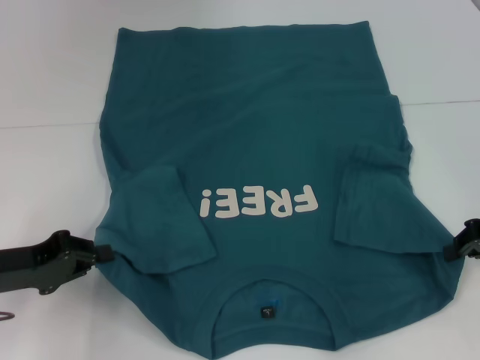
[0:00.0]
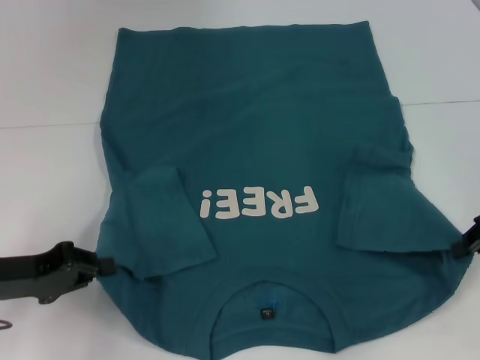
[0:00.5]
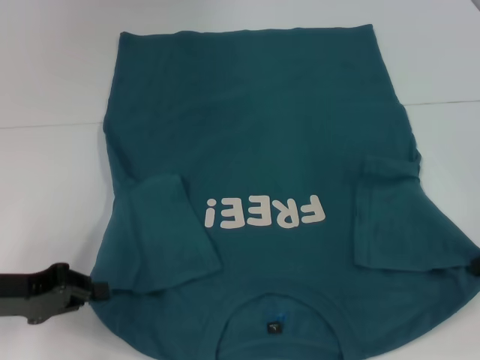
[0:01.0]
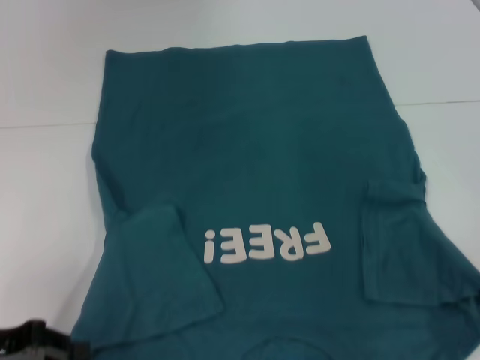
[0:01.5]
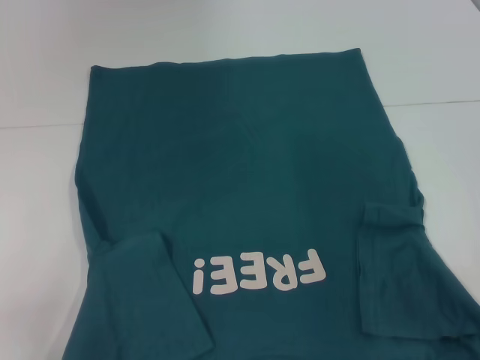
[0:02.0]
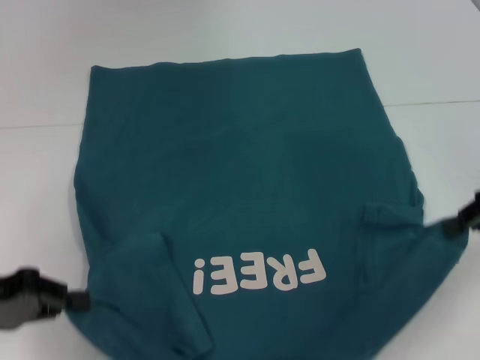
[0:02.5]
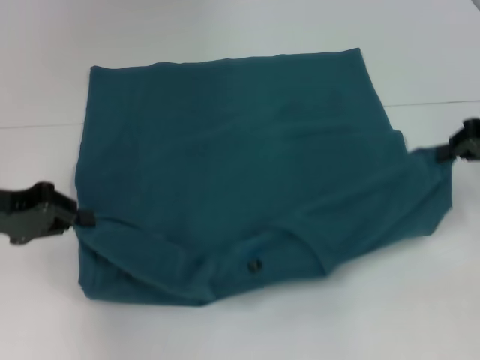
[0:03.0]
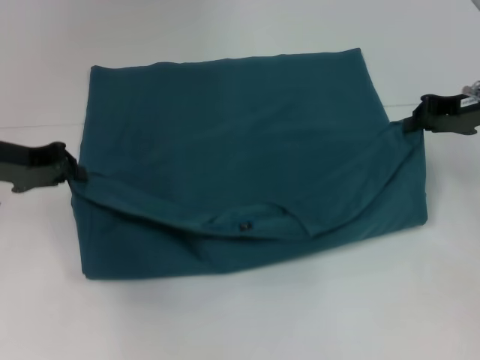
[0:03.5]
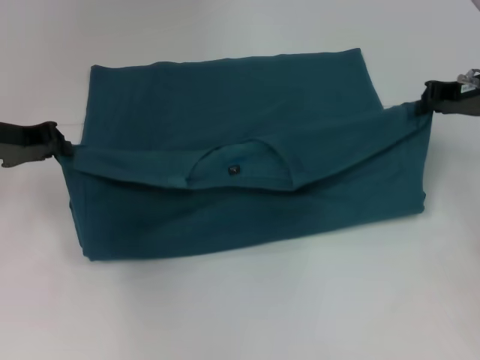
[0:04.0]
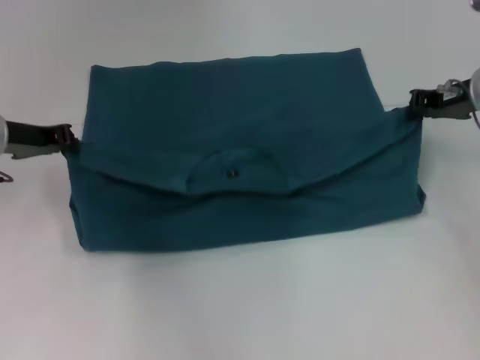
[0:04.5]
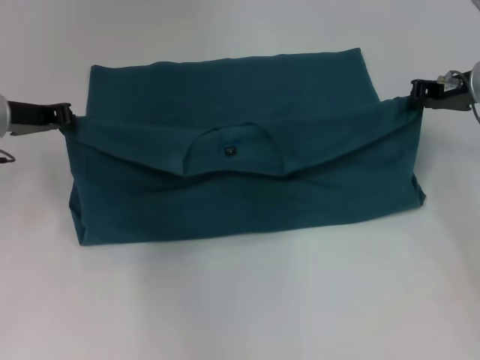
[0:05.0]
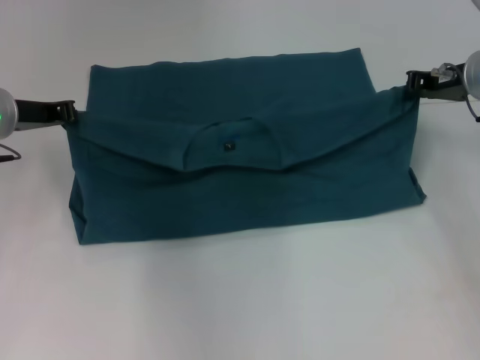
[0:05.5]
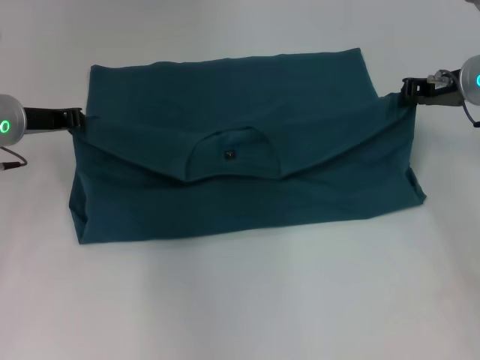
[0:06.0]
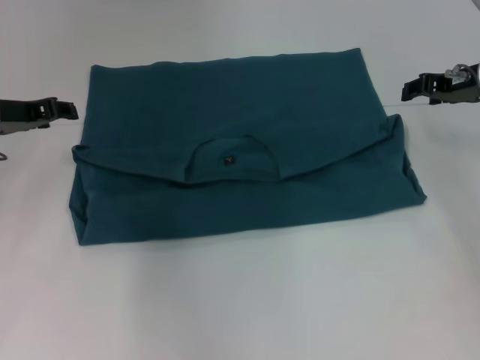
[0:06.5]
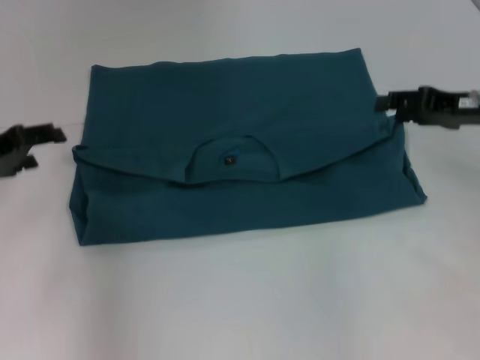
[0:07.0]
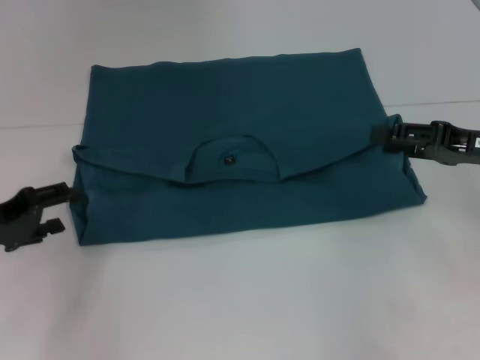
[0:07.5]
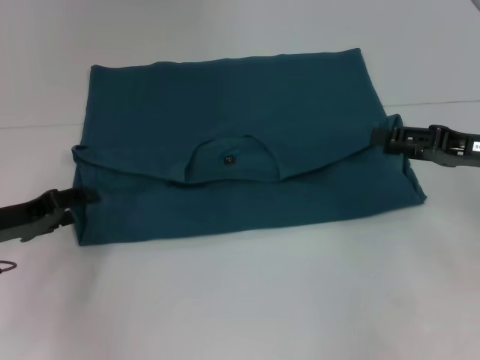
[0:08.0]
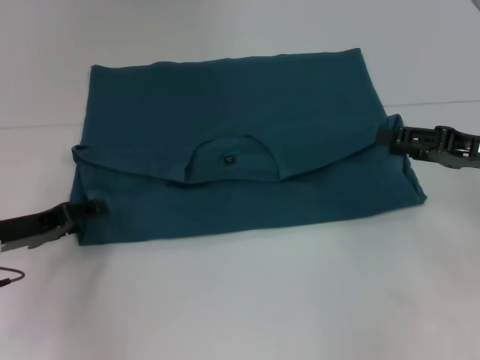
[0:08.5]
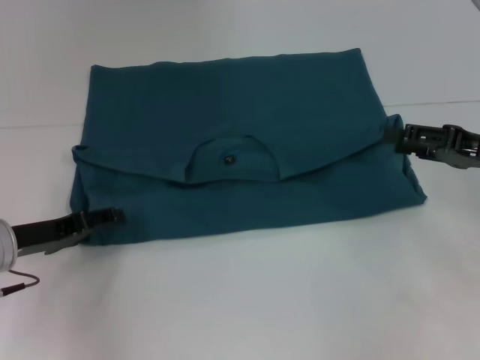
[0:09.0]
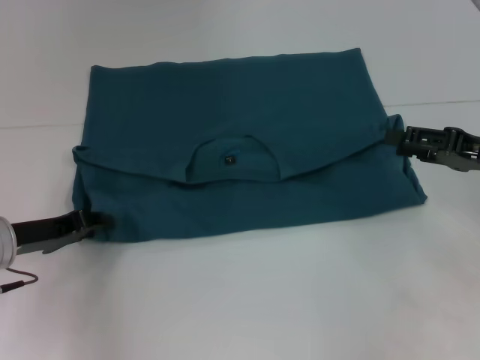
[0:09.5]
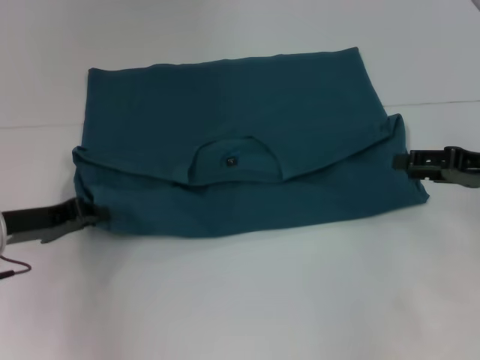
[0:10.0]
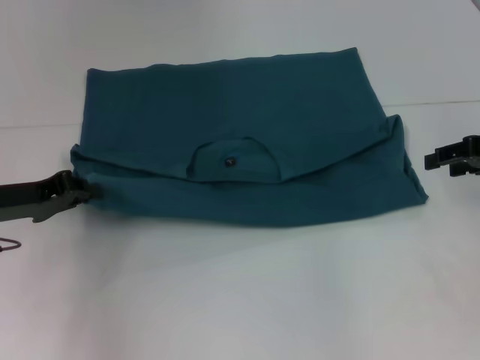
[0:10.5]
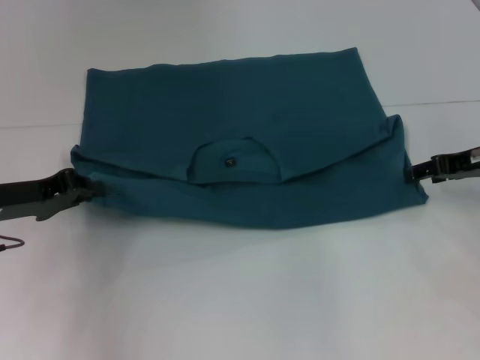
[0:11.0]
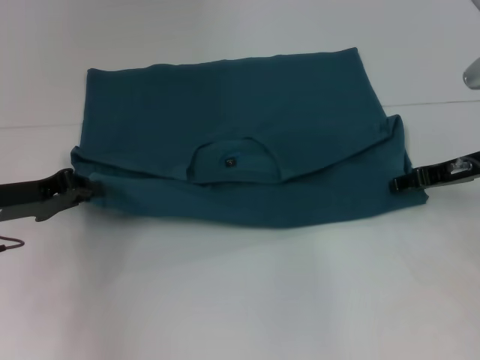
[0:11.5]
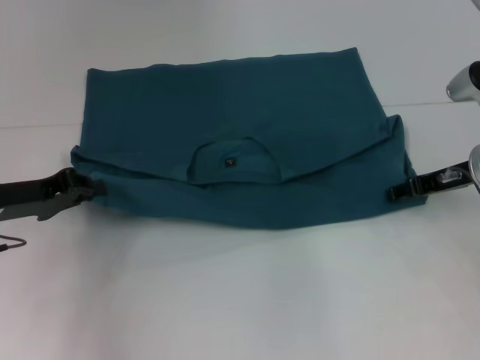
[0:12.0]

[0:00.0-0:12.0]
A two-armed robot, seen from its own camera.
Step, 0.5 to 6.5 s: Fold the clothes to the left.
Step, 0.5 to 6.5 s: Fold the clothes to the right.
0.0 to 2.0 s: The left gripper goes about 10 cm backward.
2.0 to 4.0 s: The right gripper is displaced forward by some 15 cm. Meanwhile the left gripper is displaced forward by approximately 20 cm.
6.0 to 8.0 s: The left gripper moves backward and downward, roughly 10 cm, and opens. Meanwhile the right gripper is displaced backward by about 10 cm, and opens.
8.0 to 10.0 s: The left gripper closes its fingers.
10.0 to 12.0 s: The right gripper heads forward, covering about 5 cm.

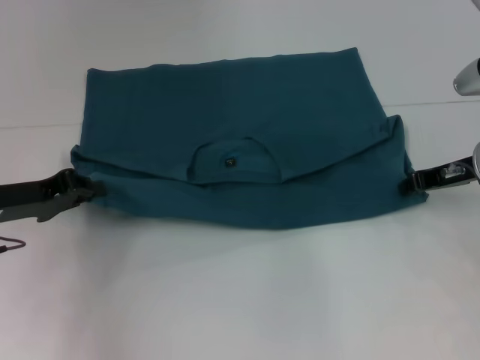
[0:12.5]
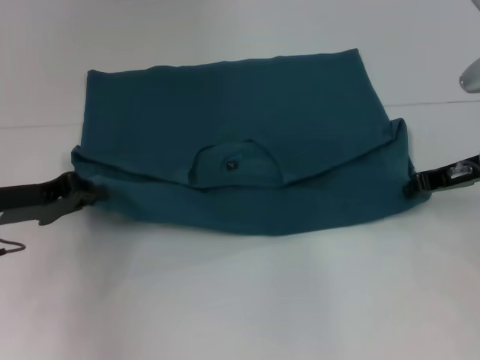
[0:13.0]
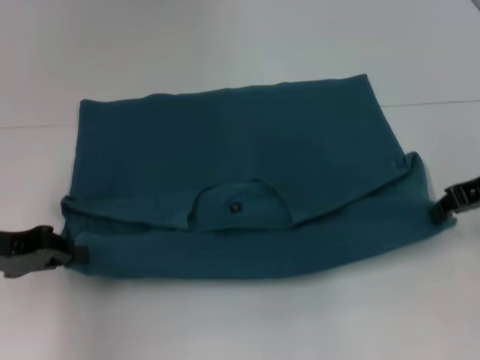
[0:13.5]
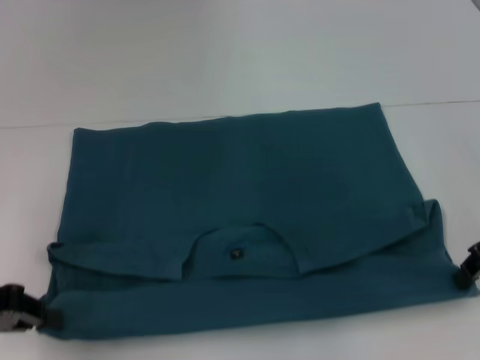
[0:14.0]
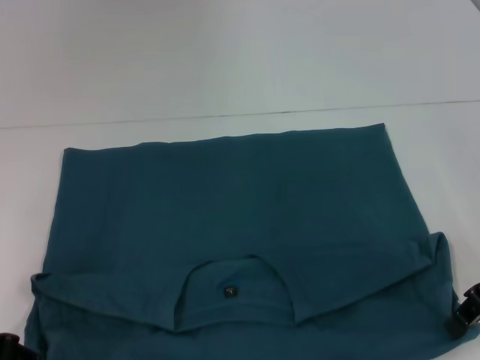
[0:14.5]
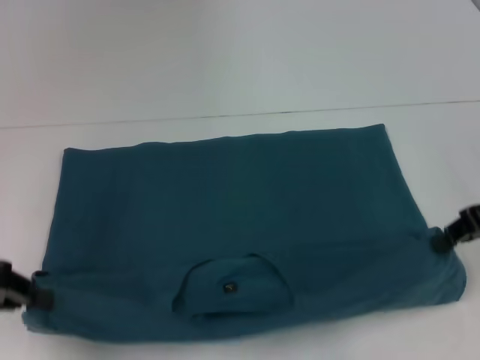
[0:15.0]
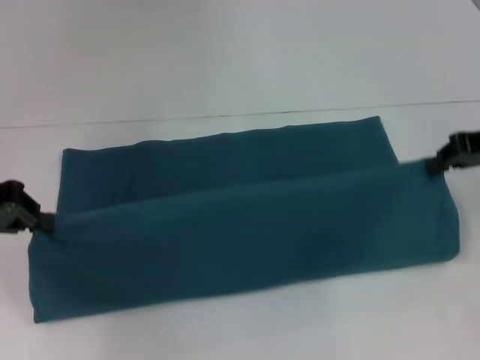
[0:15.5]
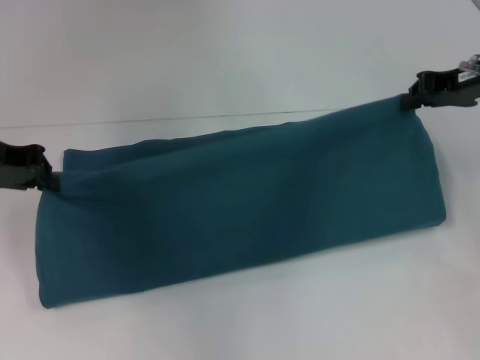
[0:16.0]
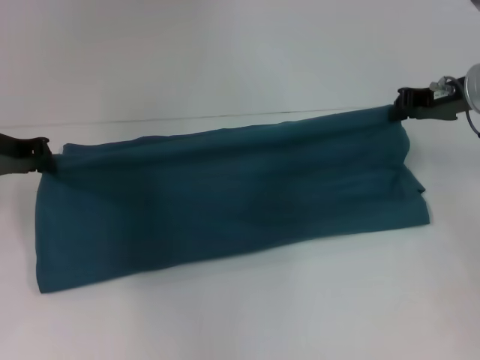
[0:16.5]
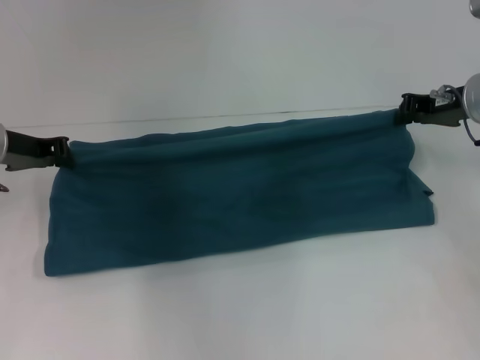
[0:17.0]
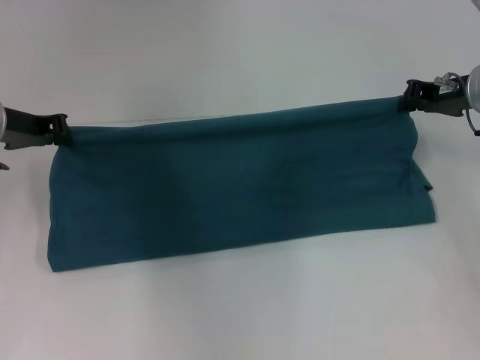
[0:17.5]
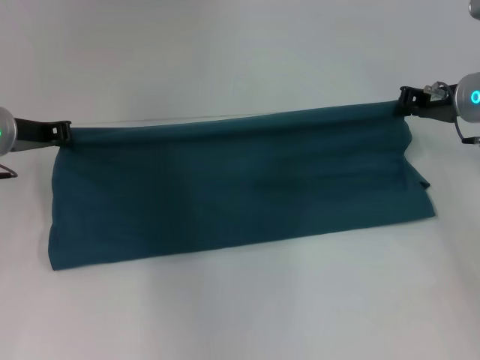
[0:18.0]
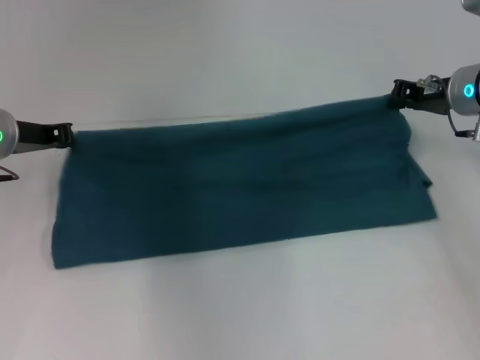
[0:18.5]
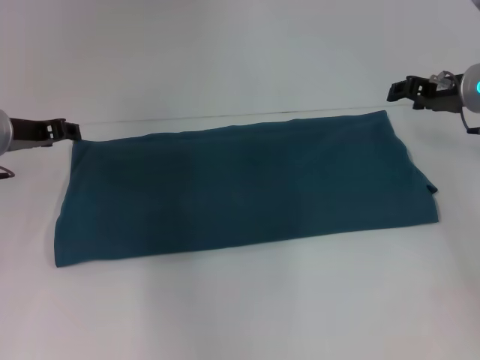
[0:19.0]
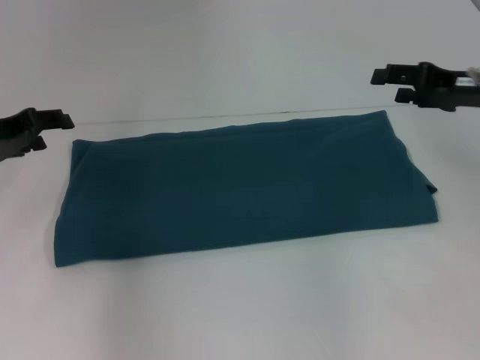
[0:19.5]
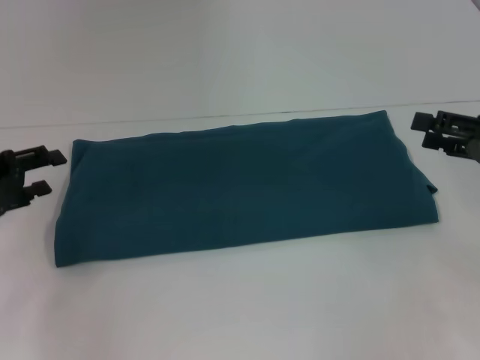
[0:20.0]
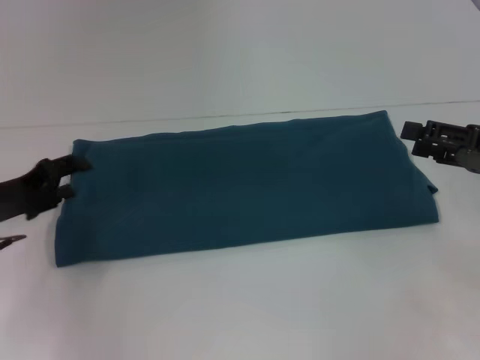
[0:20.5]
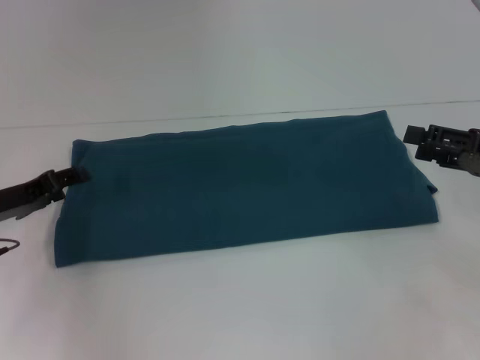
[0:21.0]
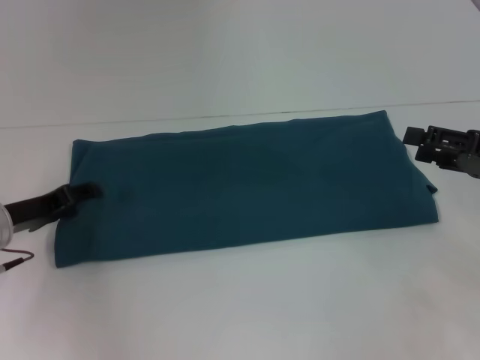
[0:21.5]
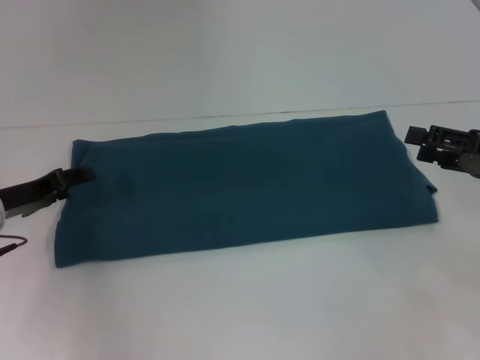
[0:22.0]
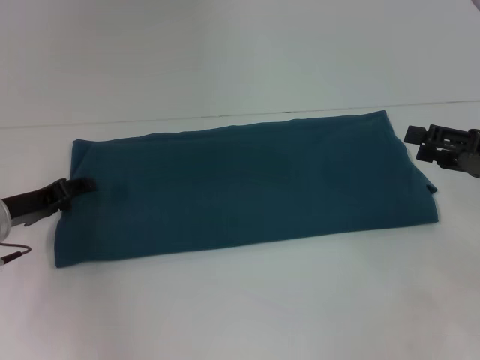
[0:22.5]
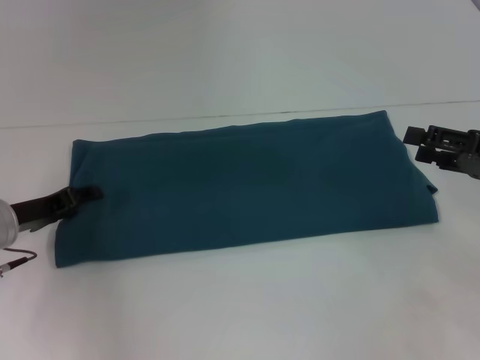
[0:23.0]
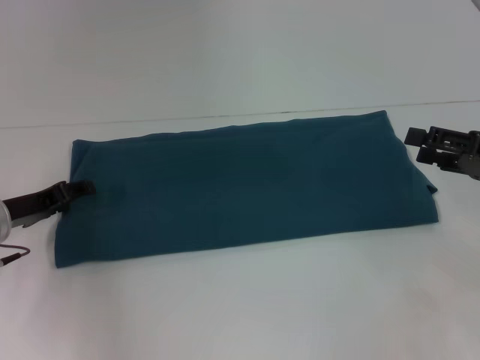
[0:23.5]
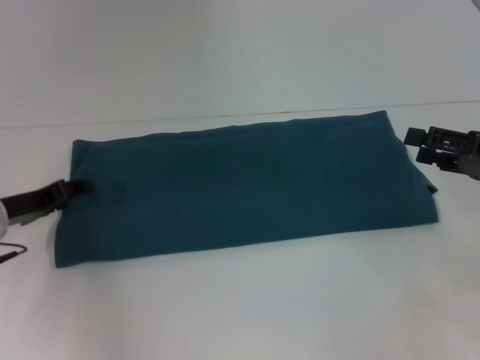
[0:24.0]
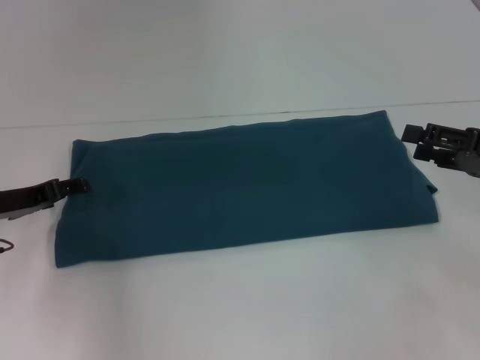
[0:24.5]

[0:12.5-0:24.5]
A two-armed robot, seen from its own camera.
Step, 14.5 to 19.0 s: Fold the clothes to the right.
12.5 to 14.5 s: Both grippers travel together backward, some 10 cm.
14.5 to 16.5 s: The two grippers go roughly 15 cm forward.
16.5 to 18.5 s: The grippers move only a little.
18.5 to 20.5 s: The right gripper heads backward and to the right, covering about 15 cm, and opens up. Meanwhile the left gripper goes some 10 cm backward and downward, and opens its fingers.
20.5 to 22.5 s: The grippers move only a little.
22.5 to 24.5 s: The grippers make only small movements.

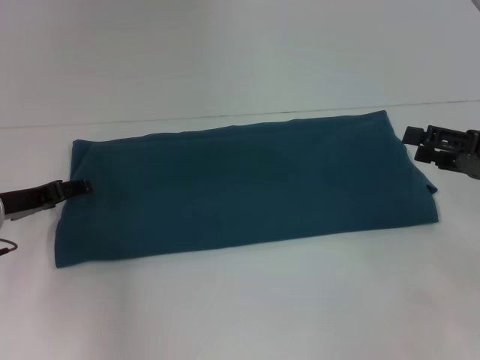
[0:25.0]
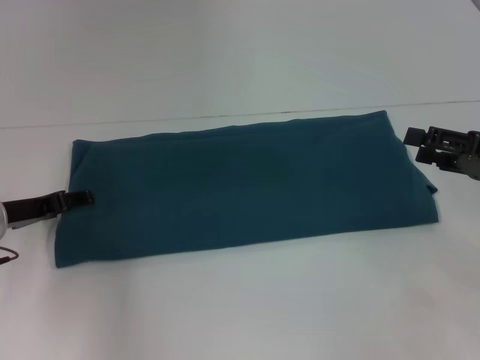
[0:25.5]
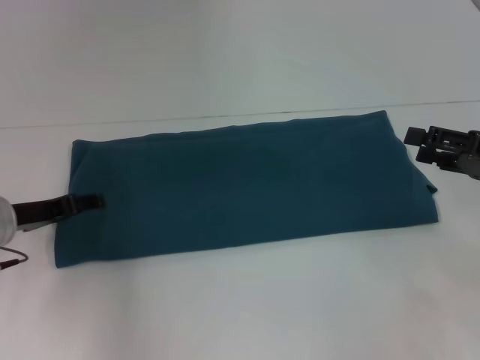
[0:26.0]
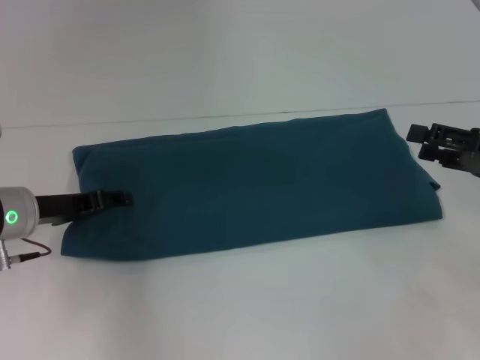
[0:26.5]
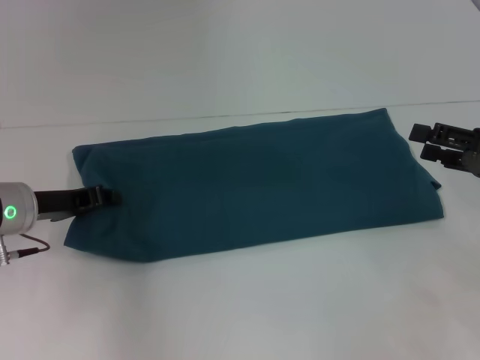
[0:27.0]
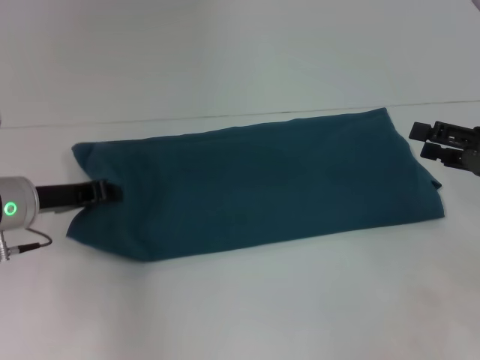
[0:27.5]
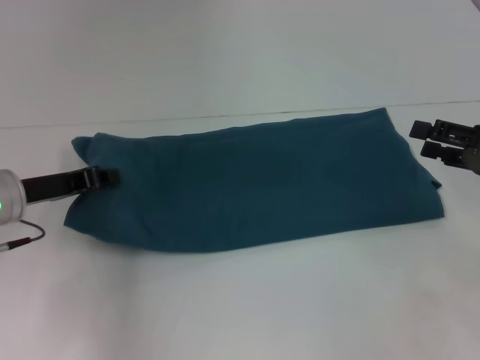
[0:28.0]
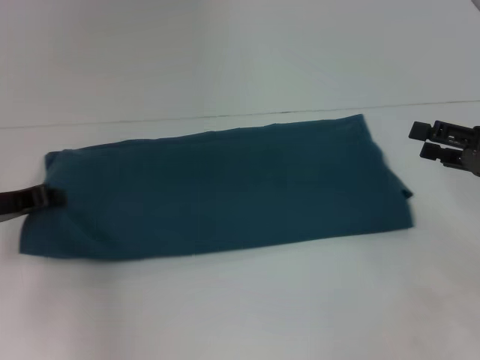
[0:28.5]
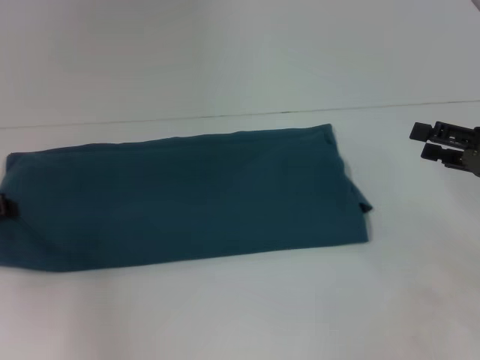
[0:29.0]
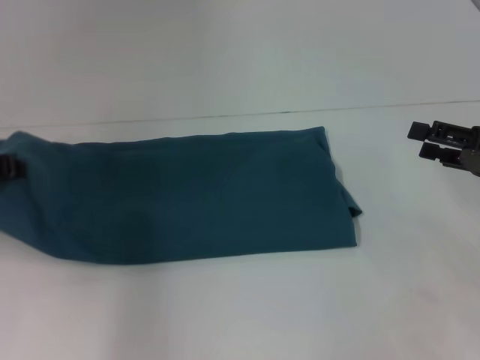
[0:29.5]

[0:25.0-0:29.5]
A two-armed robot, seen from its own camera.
25.0 to 27.0 s: The left gripper closes.
27.0 to 29.5 s: The left gripper moves upward and to the left, some 10 cm.
